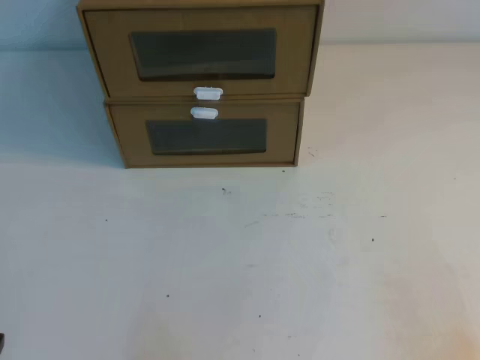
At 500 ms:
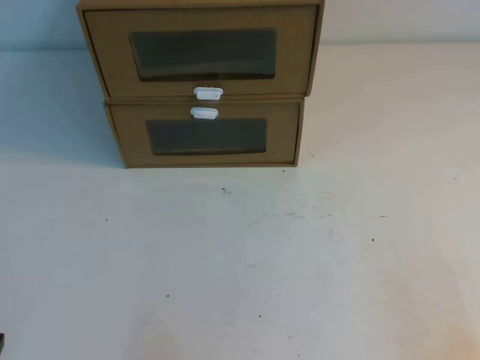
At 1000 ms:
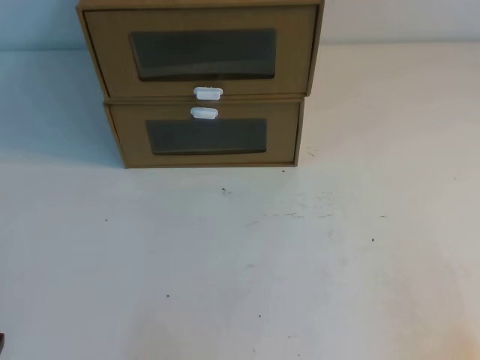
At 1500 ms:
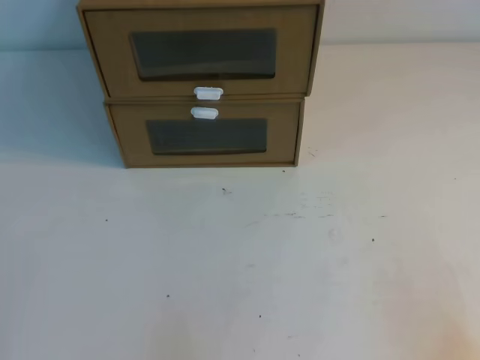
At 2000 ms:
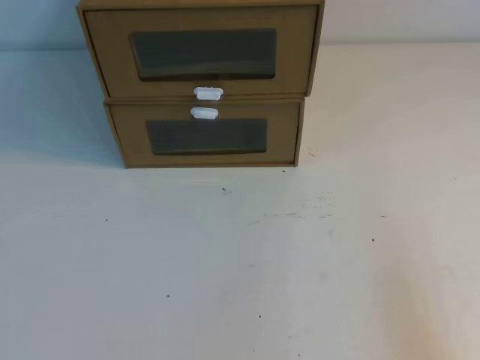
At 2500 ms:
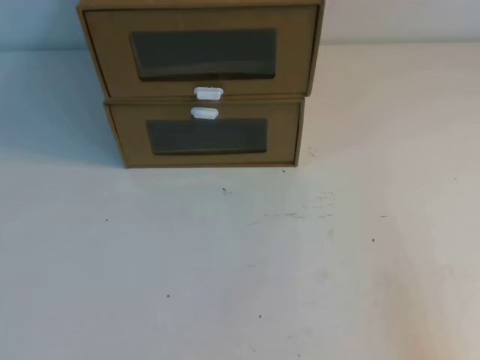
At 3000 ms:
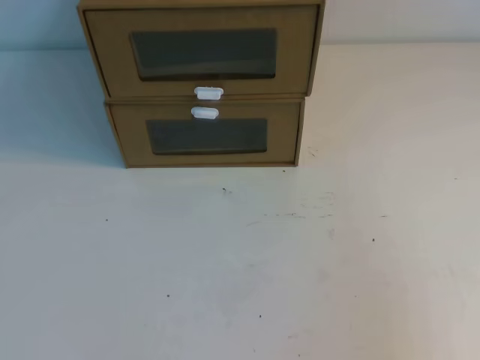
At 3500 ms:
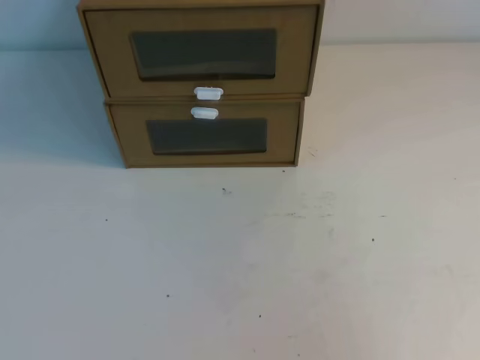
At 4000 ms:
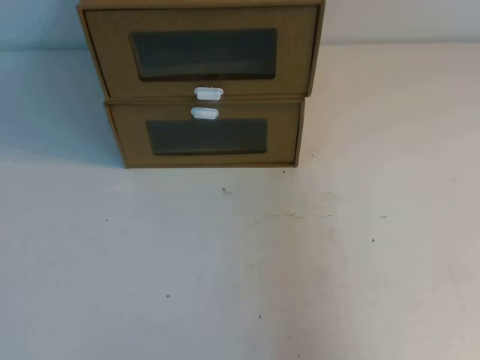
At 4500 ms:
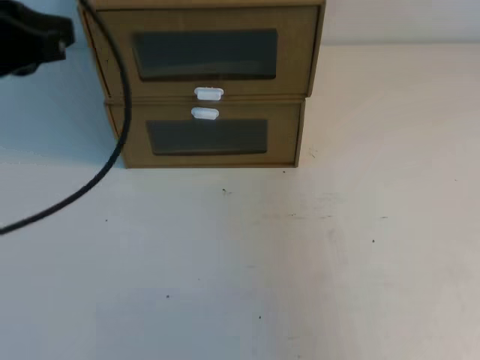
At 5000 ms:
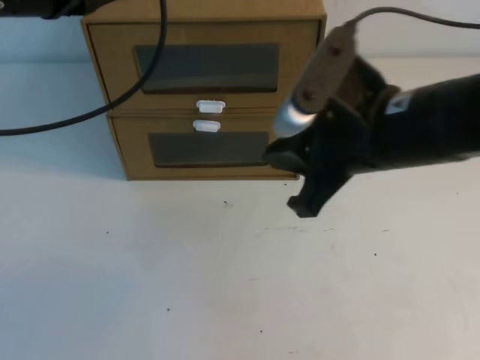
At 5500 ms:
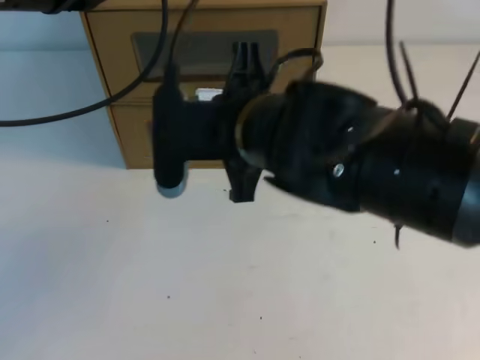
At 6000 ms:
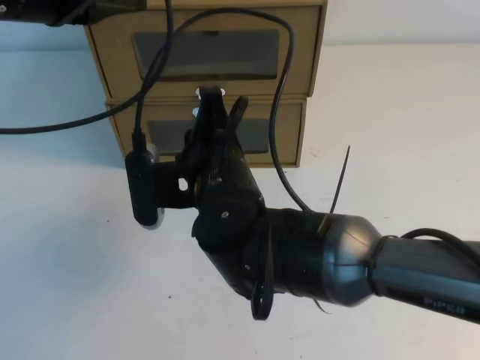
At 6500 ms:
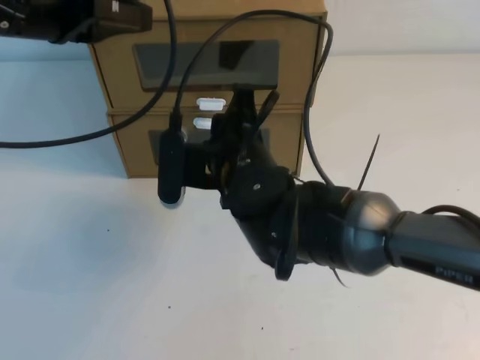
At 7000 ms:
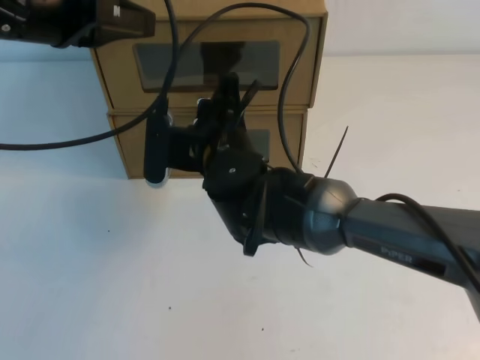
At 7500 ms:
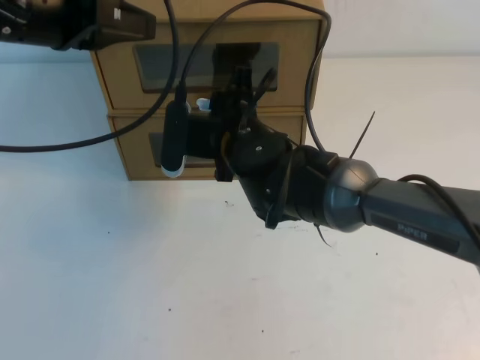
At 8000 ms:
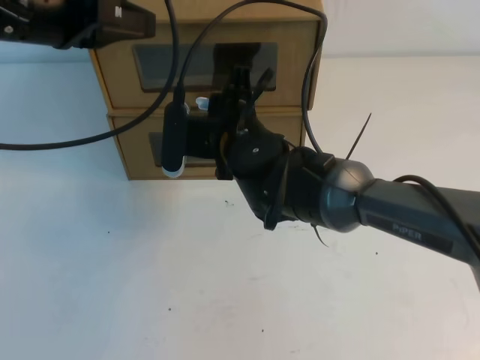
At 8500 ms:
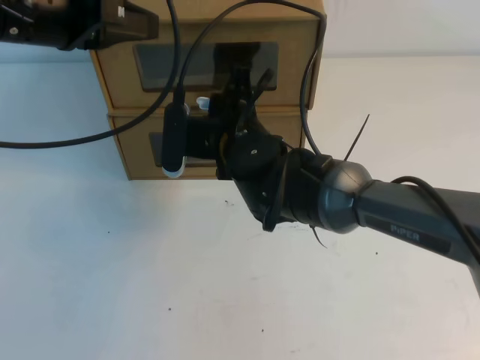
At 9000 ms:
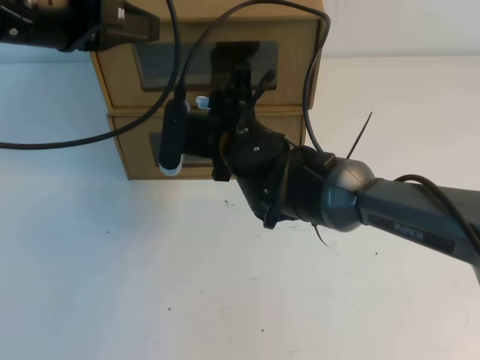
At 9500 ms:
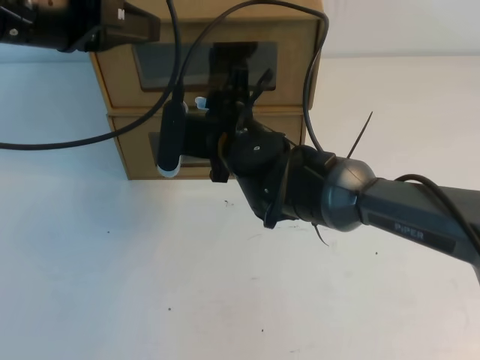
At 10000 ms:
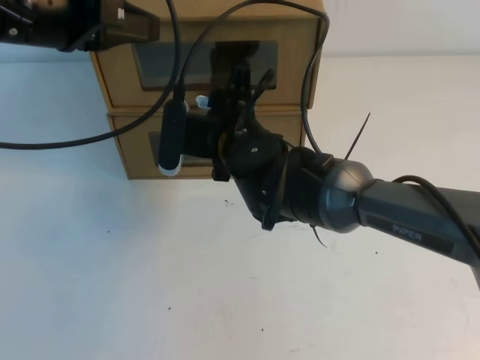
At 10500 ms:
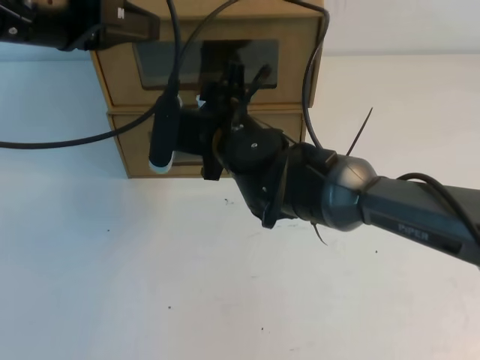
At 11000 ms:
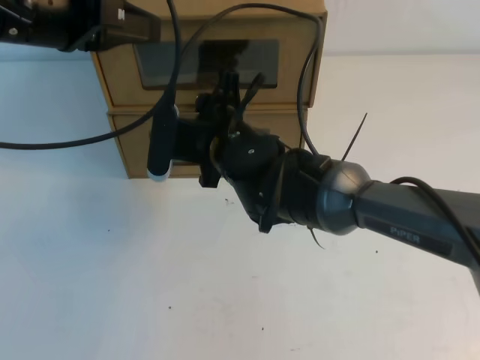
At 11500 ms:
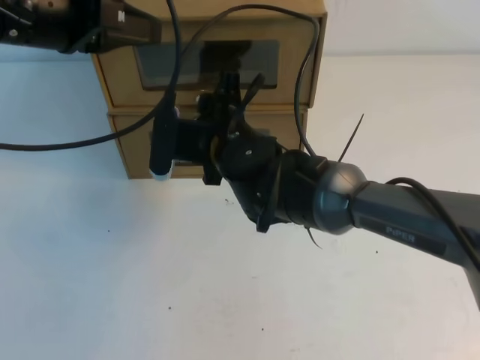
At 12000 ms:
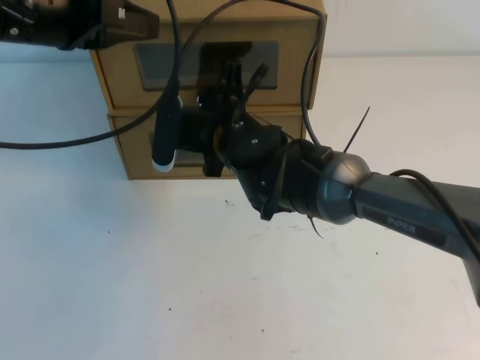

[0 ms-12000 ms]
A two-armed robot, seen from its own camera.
Task of the whole recording: open the shoebox on the table.
2000 ms to 4000 ms: The left gripper is displaced upward by some 20 cm. The right gripper is displaced upward and forward by about 20 cm.
4000 ms to 6000 ms: The left gripper is displaced forward by some 20 cm. The right gripper is displaced to the left, downward and forward by about 40 cm.
6000 ms to 8000 ms: The right gripper shifts some 10 cm forward.
8000 ms to 10000 ms: Neither gripper changes place.
10000 ms to 12000 ms: The two grippers keep their place.

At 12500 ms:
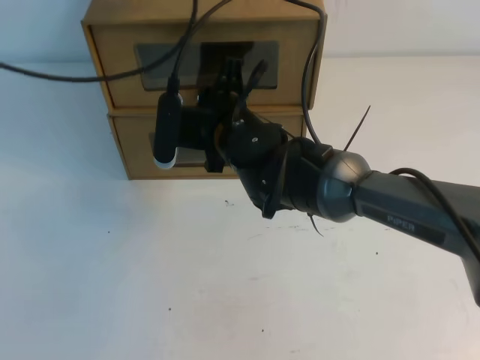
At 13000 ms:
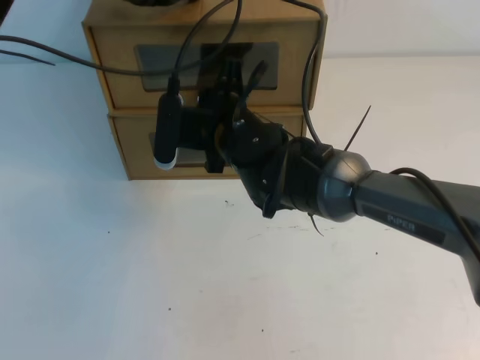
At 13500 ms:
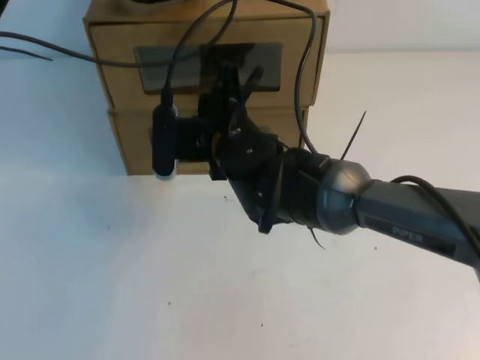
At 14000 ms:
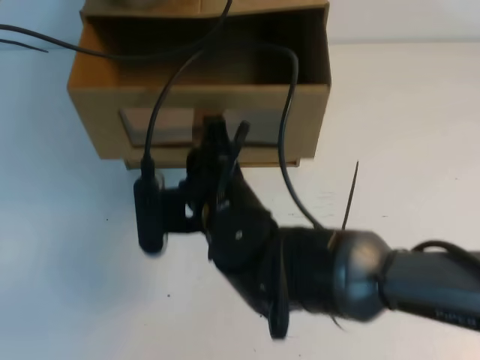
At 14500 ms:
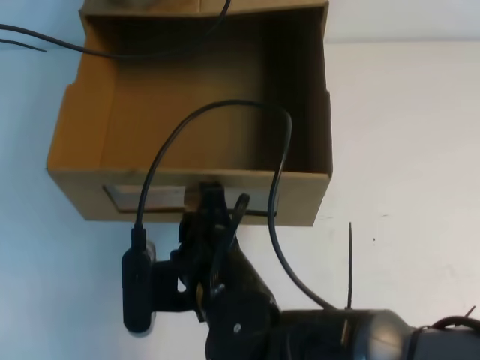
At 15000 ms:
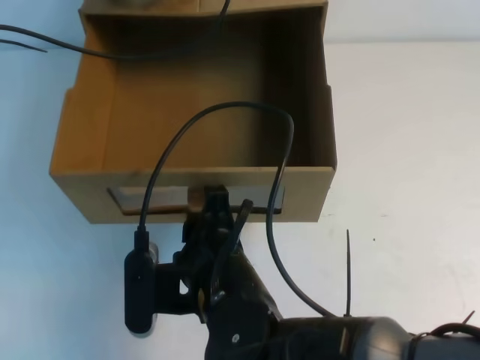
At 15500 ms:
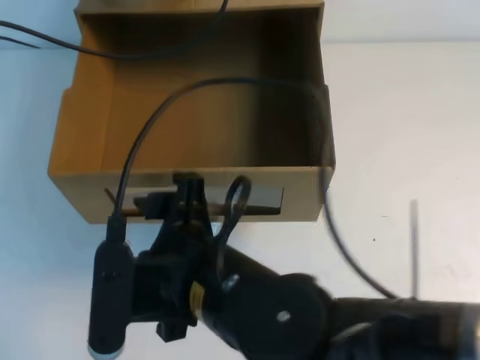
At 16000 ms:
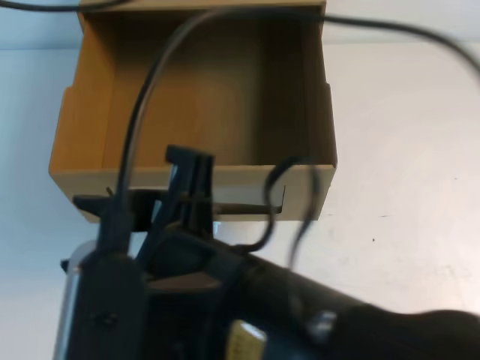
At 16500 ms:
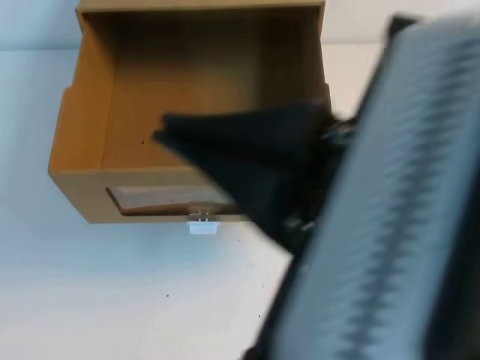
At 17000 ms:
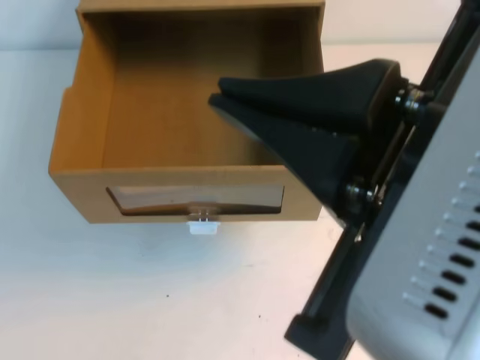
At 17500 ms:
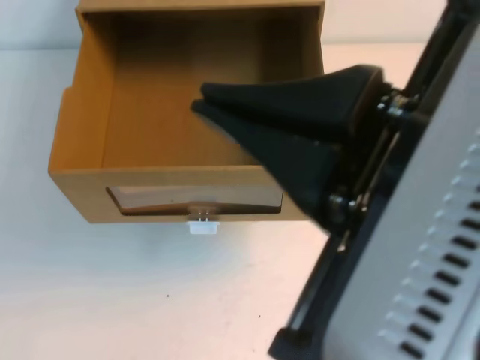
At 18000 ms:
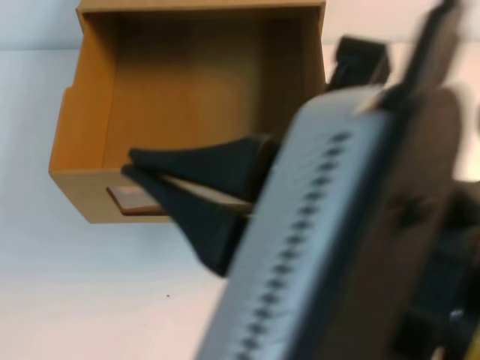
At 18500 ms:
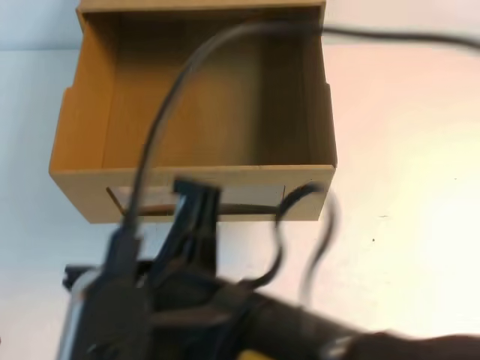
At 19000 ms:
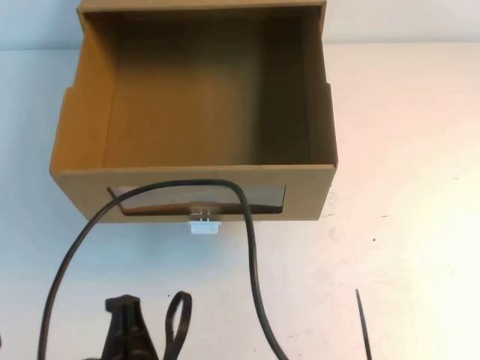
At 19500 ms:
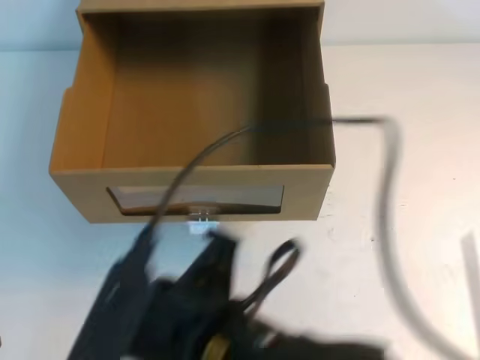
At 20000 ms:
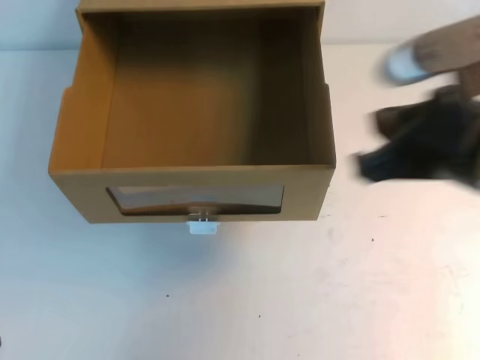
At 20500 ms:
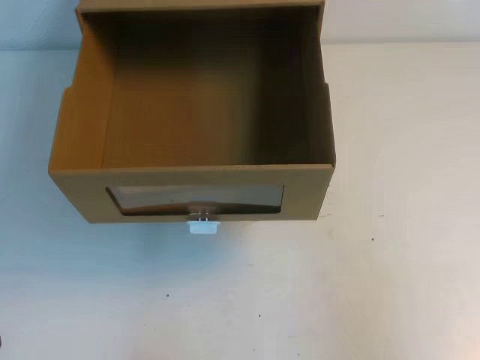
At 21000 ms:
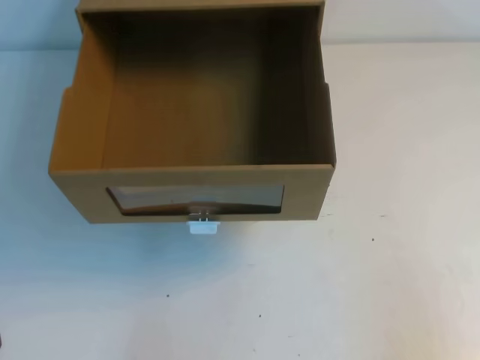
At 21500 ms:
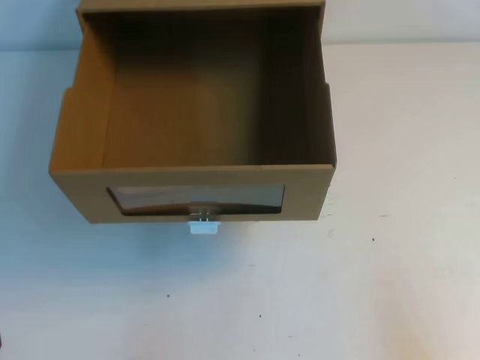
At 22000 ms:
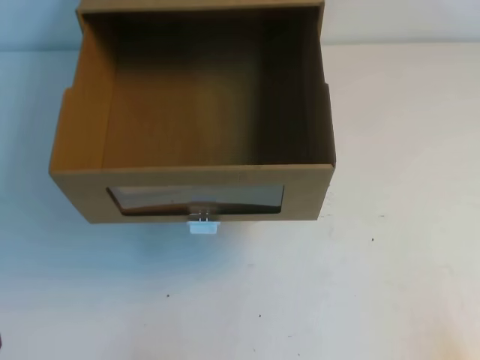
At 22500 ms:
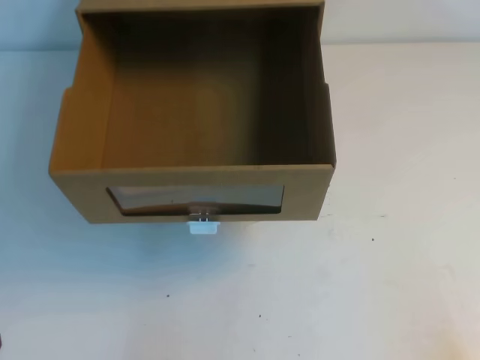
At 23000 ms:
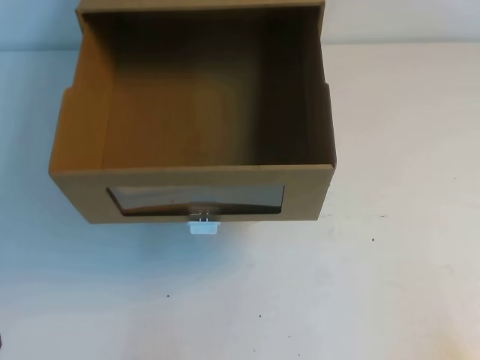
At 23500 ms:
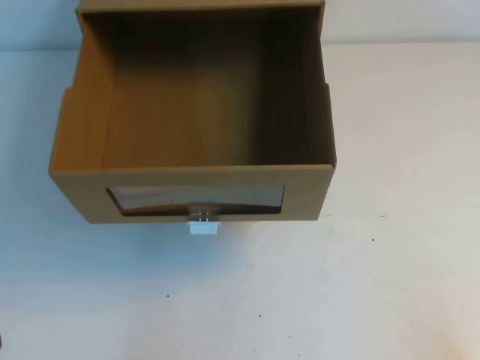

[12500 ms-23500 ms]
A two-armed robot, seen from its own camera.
Task of the whole recording: open the shoebox on the table.
Step, 12500 ms to 23500 ms: Open the shoe box.
12500 ms to 14500 ms: The left gripper shifts approximately 5 cm forward. Meanwhile the right gripper moves backward, about 20 cm.
14500 ms to 16000 ms: The two grippers go approximately 20 cm upward and backward. The right gripper opens its fingers.
16000 ms to 18000 ms: The right gripper travels to the right and upward by about 10 cm, and closes up, while the left gripper moves backward and downward, some 40 cm.
18000 ms to 20000 ms: The right gripper travels forward, downward and to the right by roughly 15 cm; the left gripper heads downward, covering approximately 5 cm.
20000 ms to 21500 ms: The right gripper heads to the right, backward and downward, covering about 25 cm.

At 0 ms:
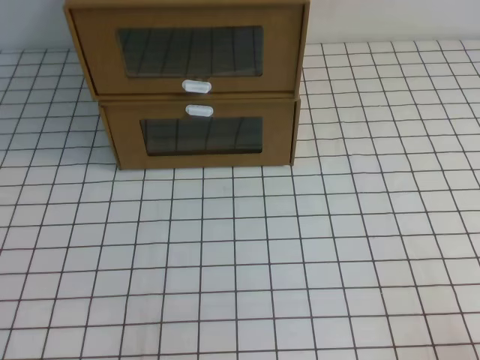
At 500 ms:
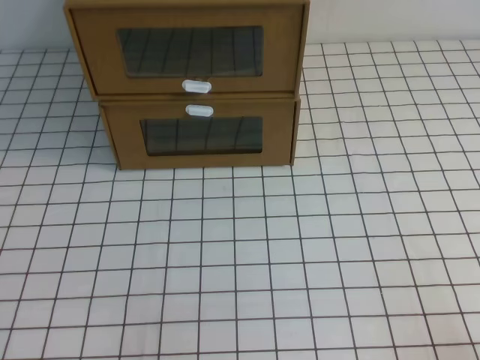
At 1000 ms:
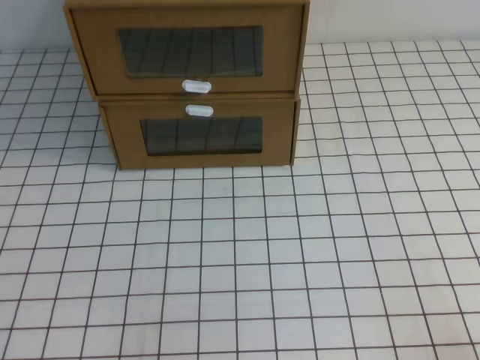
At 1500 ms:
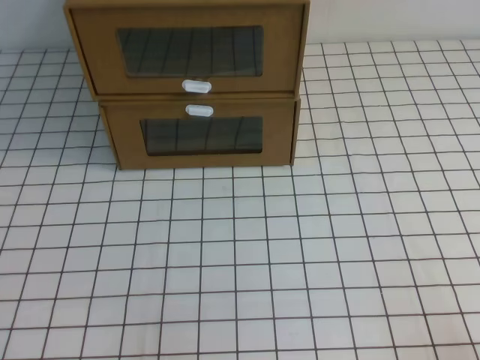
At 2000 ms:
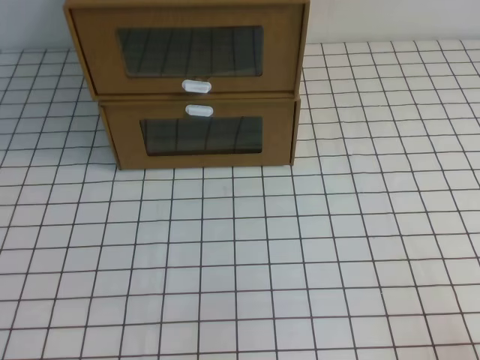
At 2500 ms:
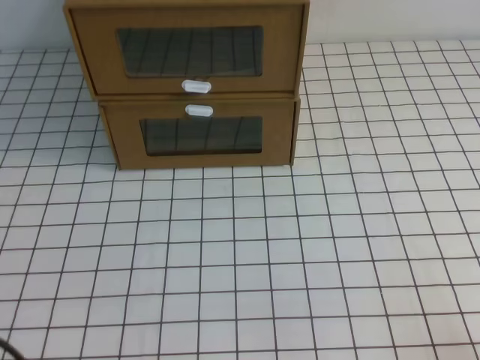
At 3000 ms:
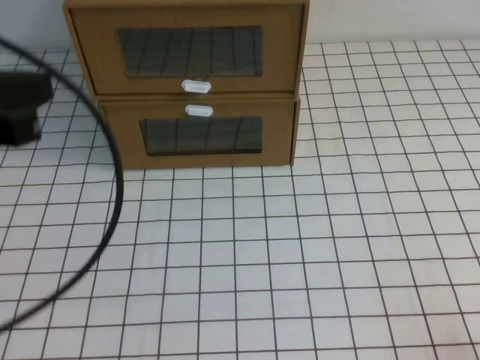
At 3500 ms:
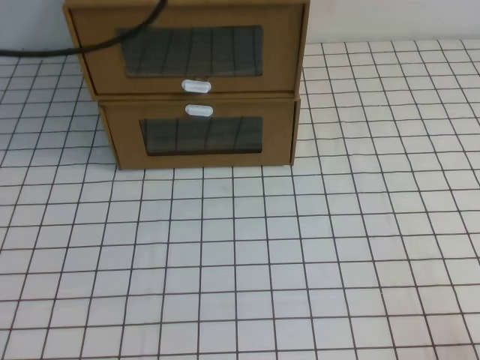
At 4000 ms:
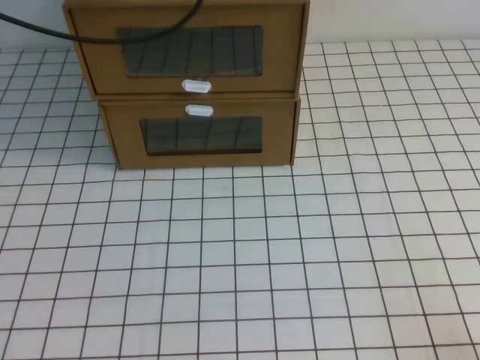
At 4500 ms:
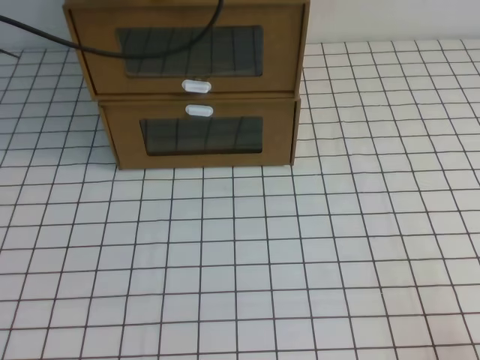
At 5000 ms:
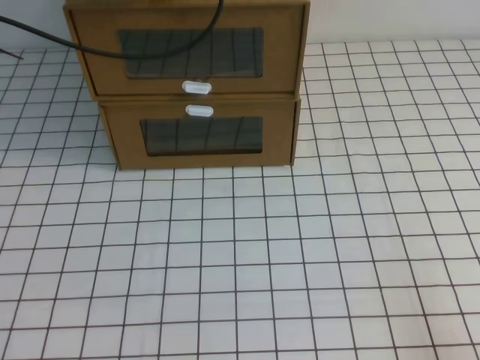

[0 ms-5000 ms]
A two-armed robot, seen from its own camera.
Task of the whole recording: open the shoebox on the white tablecloth.
2500 ms to 5000 ms: The left gripper is displaced forward and upward by about 40 cm.
